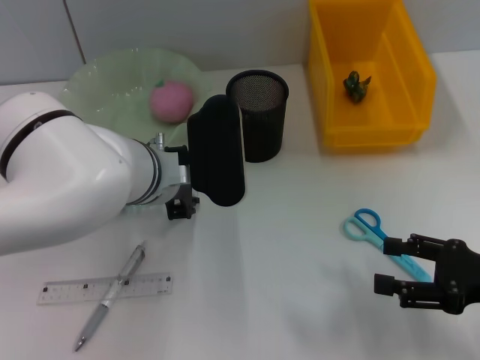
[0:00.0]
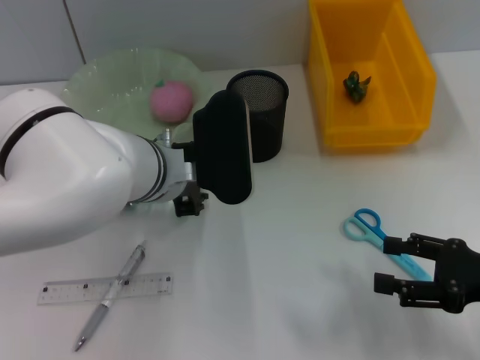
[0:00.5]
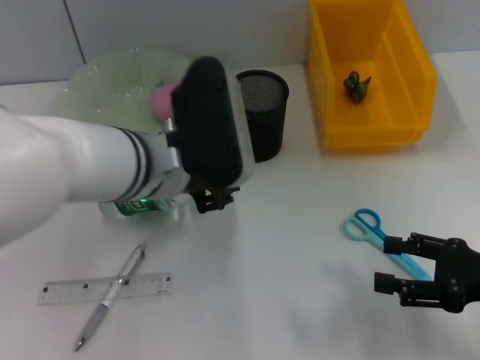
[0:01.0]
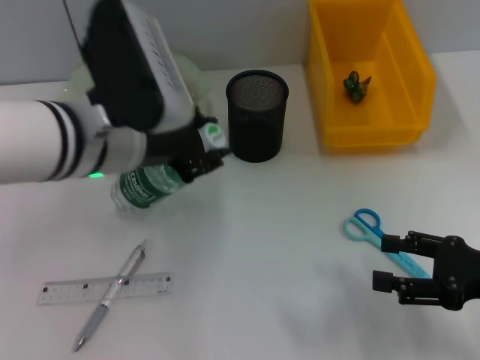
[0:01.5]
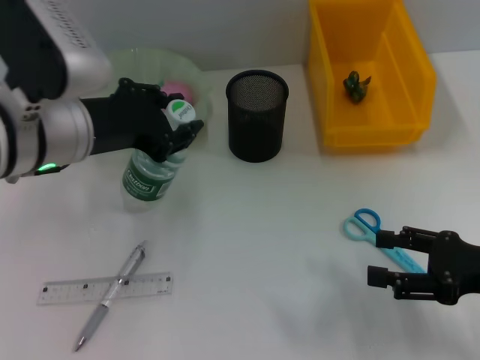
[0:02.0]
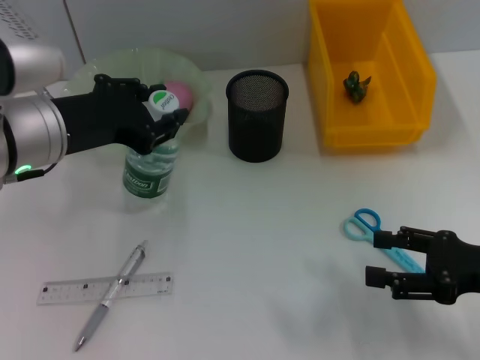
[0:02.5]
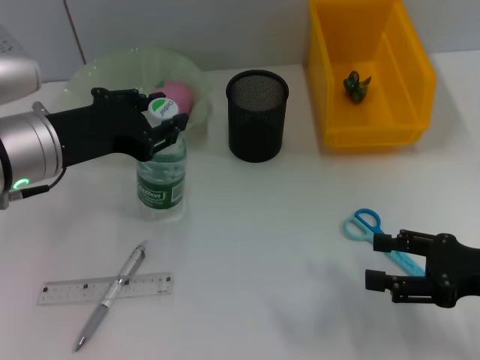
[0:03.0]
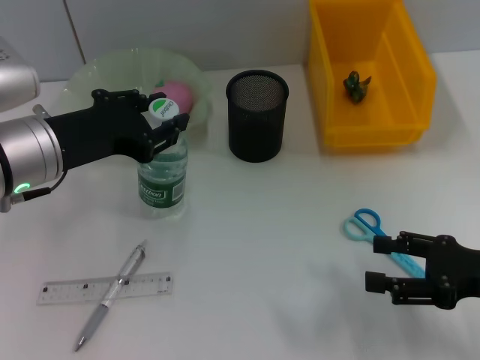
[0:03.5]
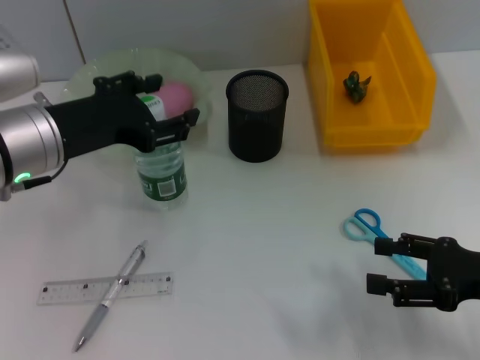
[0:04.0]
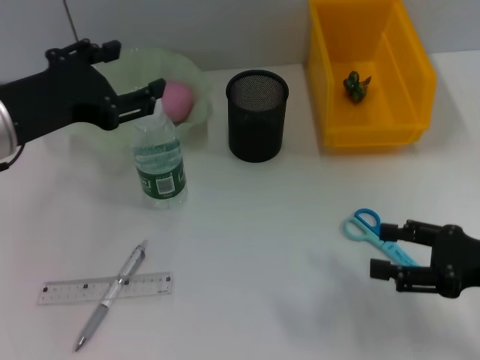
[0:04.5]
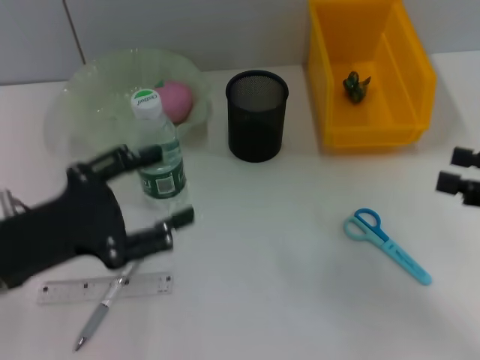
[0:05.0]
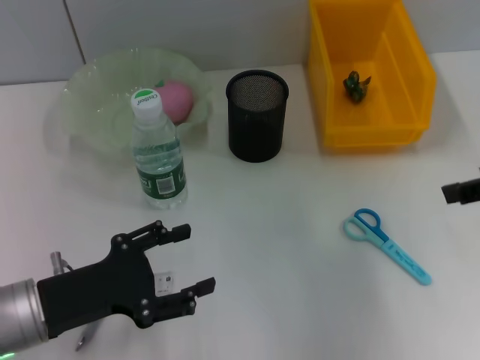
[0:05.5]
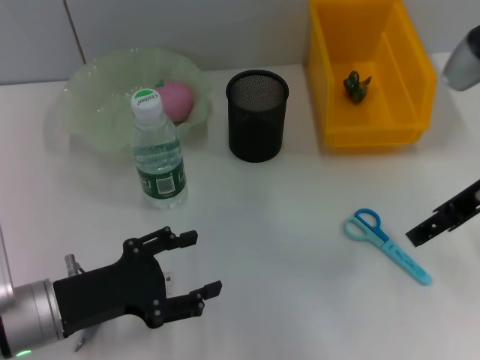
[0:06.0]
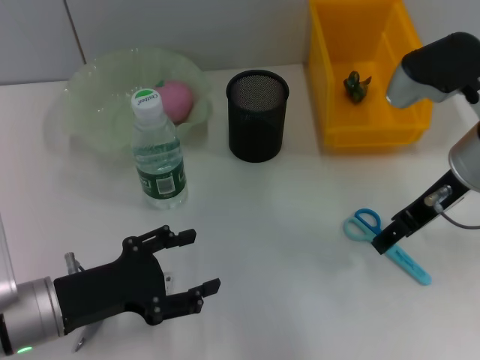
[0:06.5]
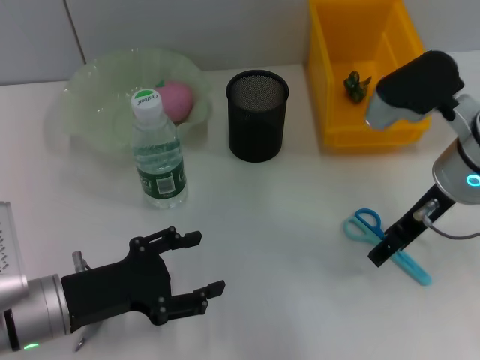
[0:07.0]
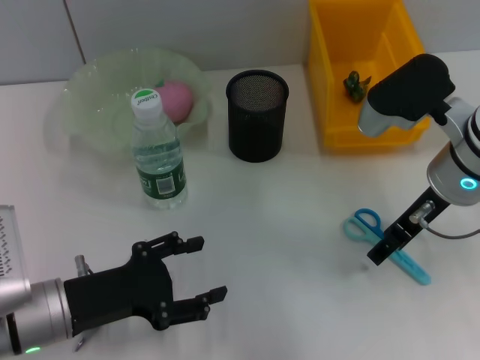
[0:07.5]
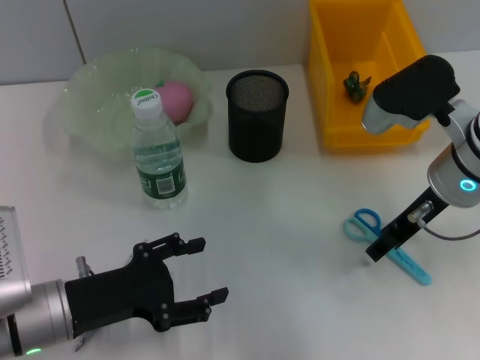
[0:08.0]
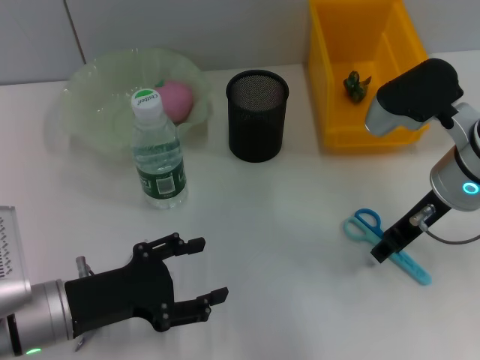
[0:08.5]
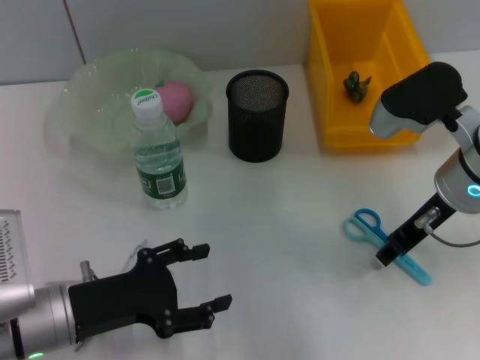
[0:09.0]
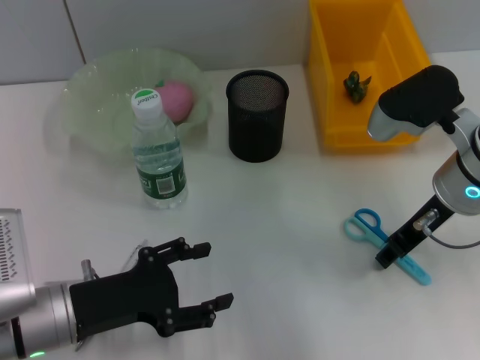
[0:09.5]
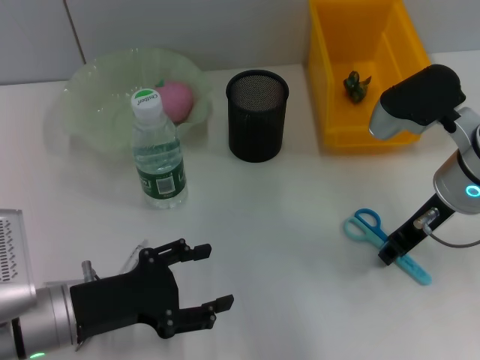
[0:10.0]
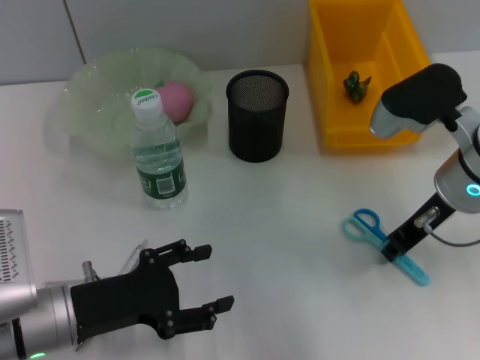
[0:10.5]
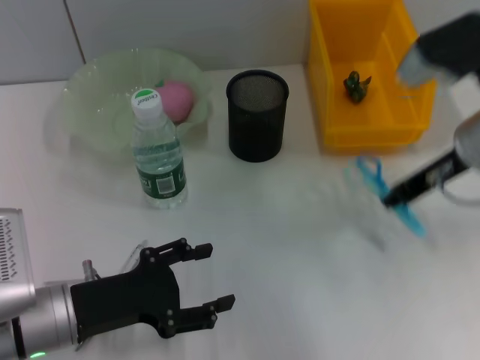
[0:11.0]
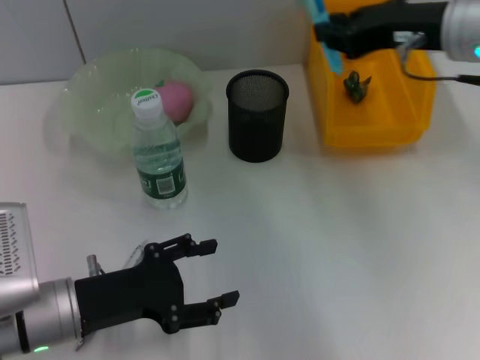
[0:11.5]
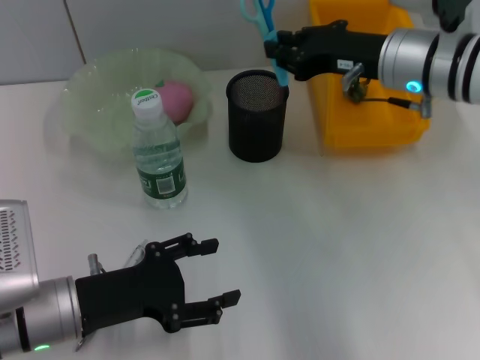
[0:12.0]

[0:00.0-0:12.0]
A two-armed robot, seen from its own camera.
Step, 0:00.5 to 0:04.5: Place the water bottle on the table with the left hand.
Step, 0:05.0 to 0:10.0: Grab the blue scissors with the right hand.
0:00.0 to 0:02.0: The left gripper moves to the left and upward, roughly 10 cm.
0:02.0 to 0:04.0: The grippers make only small movements.
0:04.0 to 0:06.0: The left gripper heads downward and backward, covering about 15 cm, and opens its fingers. The right gripper moves upward, forward and to the left, approximately 15 cm.
0:06.0 to 0:08.0: The right gripper goes approximately 5 cm downward.
0:08.0 to 0:10.0: The right gripper closes up.
0:10.0 to 0:12.0: The right gripper travels forward by roughly 5 cm, and travels upward and back again, roughly 10 cm each way.

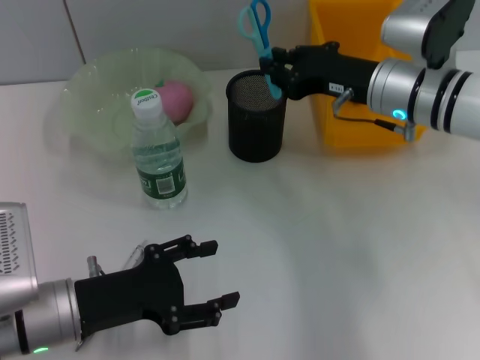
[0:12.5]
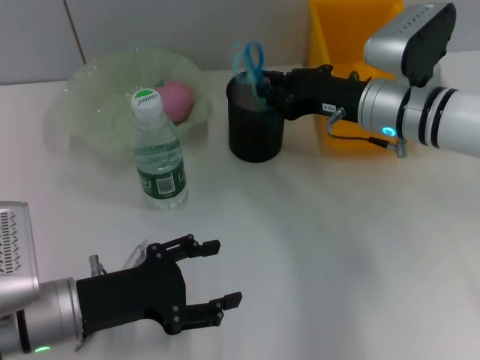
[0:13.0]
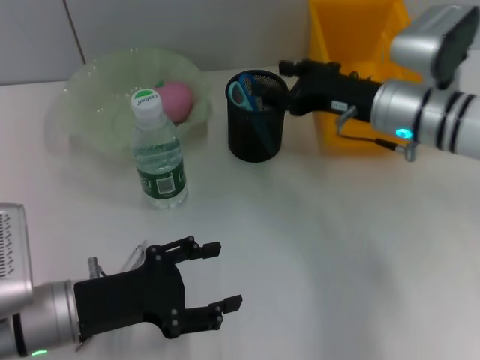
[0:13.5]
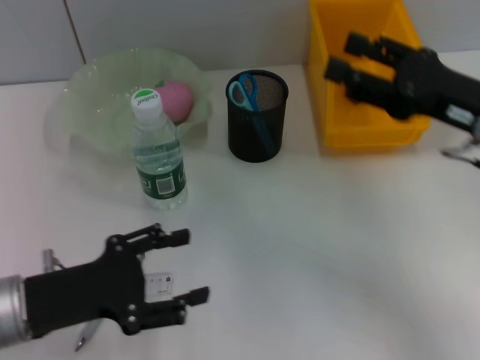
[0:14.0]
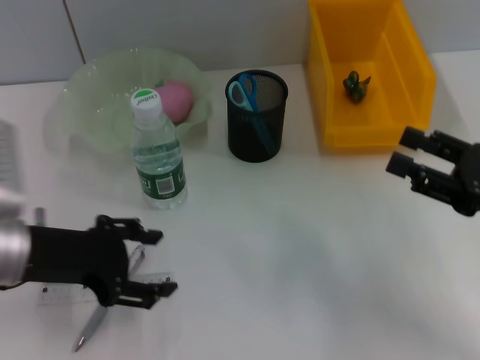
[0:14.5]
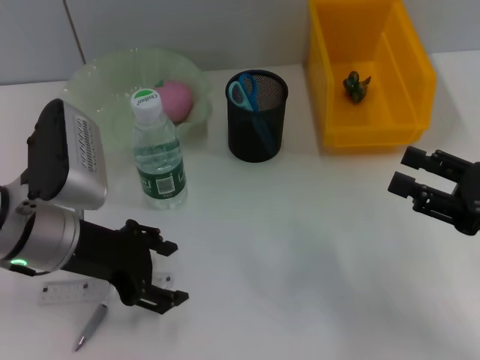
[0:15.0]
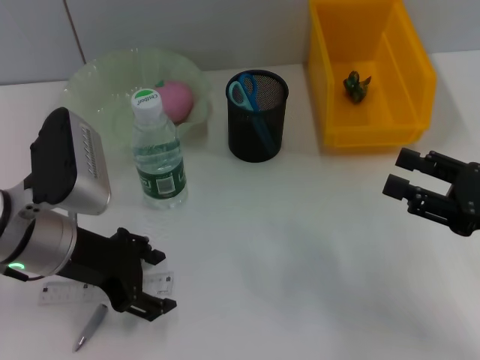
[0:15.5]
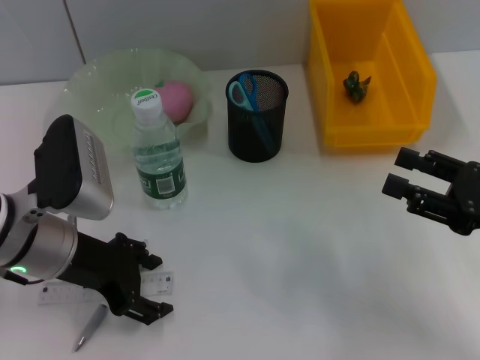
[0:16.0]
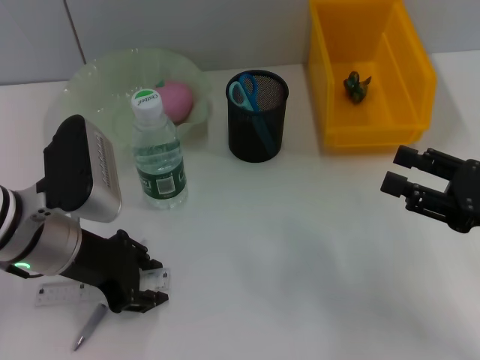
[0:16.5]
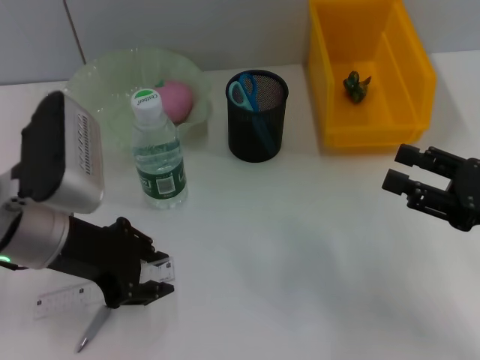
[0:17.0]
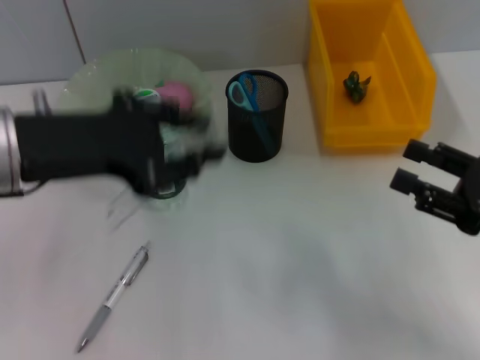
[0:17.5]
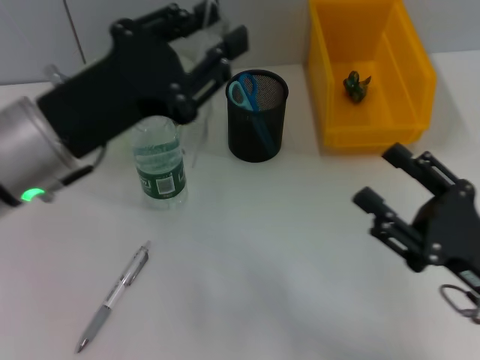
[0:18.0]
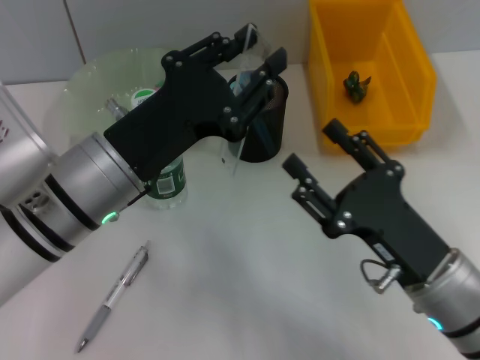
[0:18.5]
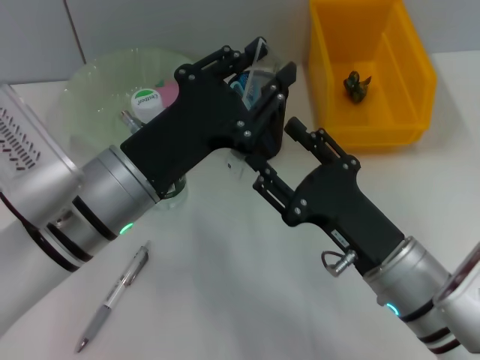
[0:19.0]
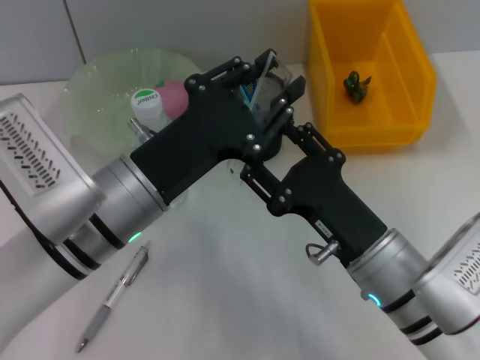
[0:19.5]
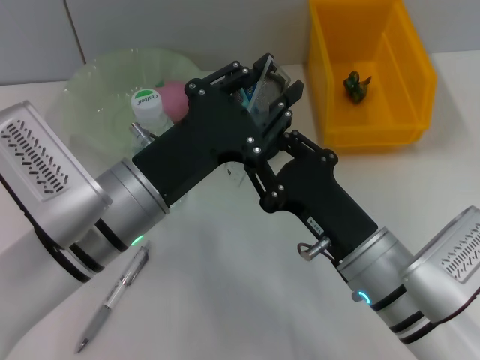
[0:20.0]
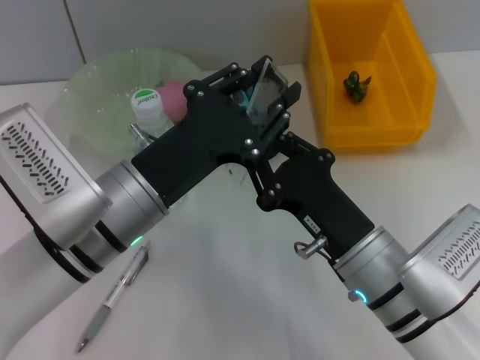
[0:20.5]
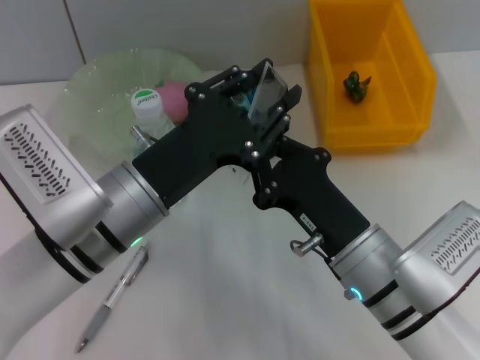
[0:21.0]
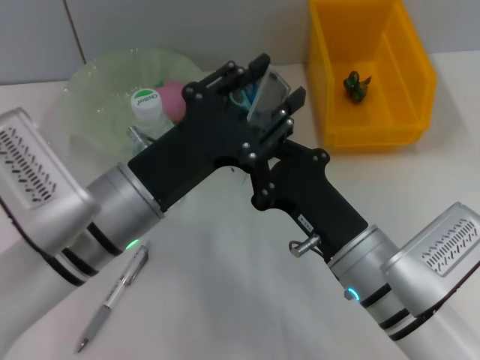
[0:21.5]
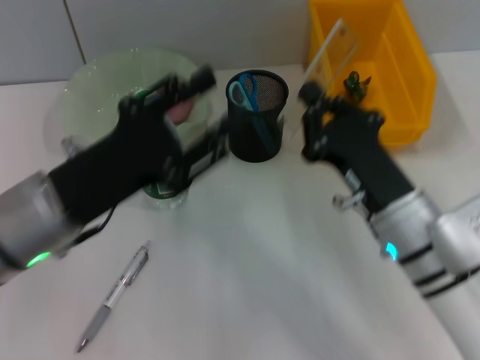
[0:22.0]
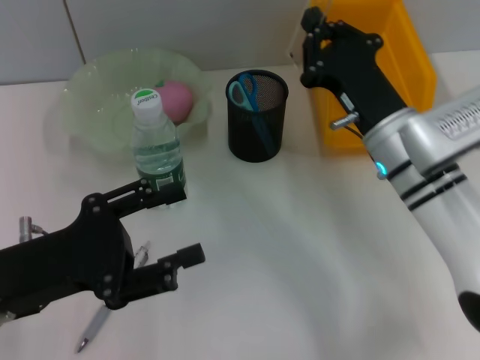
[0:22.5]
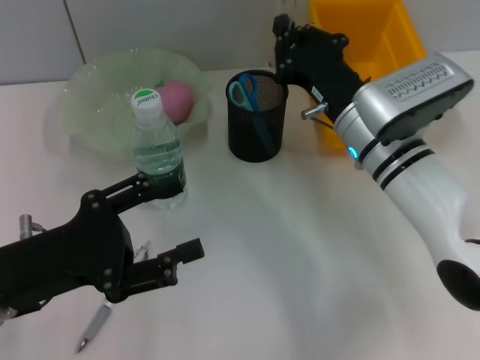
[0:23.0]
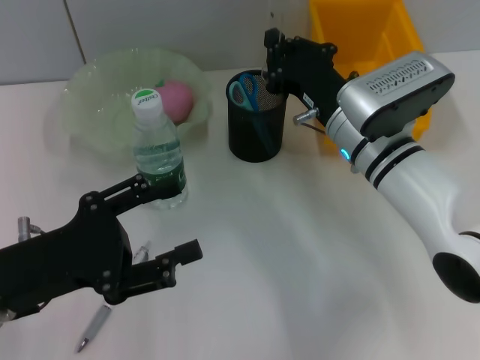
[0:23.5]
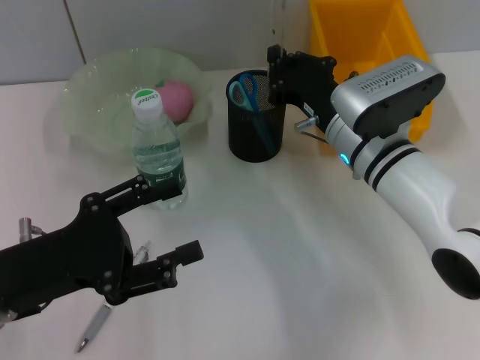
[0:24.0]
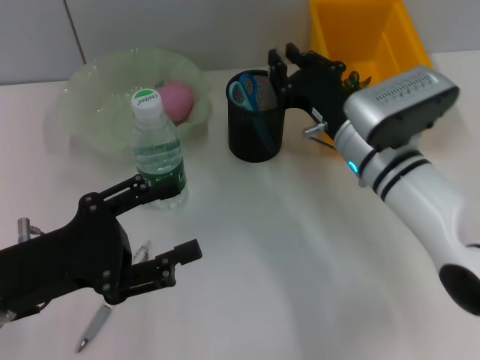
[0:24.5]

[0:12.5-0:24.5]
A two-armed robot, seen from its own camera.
Step, 0:14.0 to 0:16.5: Grab the ruler with the left hand.
Step, 0:17.0 to 0:21.5: Pass the ruler from the left hand to the right hand.
0:12.5 to 0:14.5: The left gripper shifts about 10 cm upward. Meanwhile the right gripper moves backward and to the right, approximately 20 cm, and opens its fingers.
0:14.5 to 0:16.5: The left gripper moves approximately 5 cm.
0:16.5 to 0:18.5: The left gripper is displaced to the right by roughly 5 cm, and goes upward and returns, some 10 cm each way, while the right gripper is displaced to the left by approximately 15 cm.
0:18.5 to 0:20.5: The right gripper moves to the left, some 5 cm, and closes its fingers.
0:20.5 to 0:22.5: The left gripper shifts about 10 cm to the left. Meanwhile the right gripper is displaced forward by roughly 10 cm.
0:22.5 to 0:24.5: The grippers make only small movements.

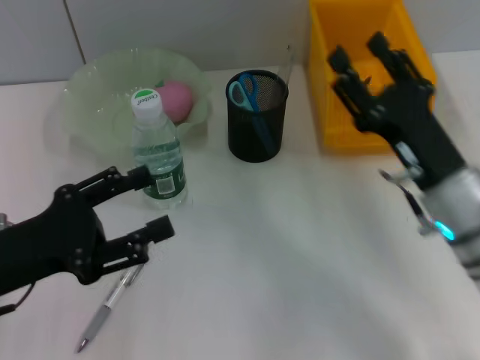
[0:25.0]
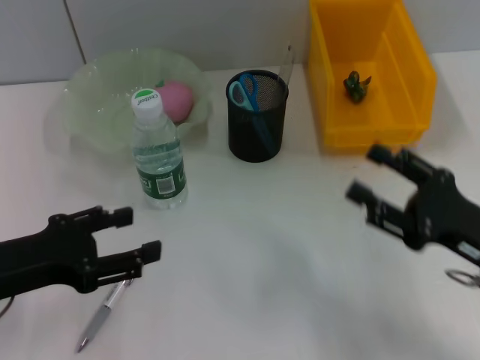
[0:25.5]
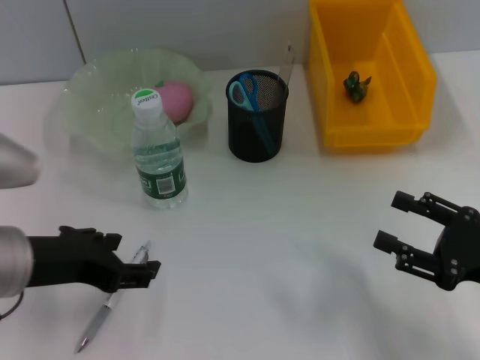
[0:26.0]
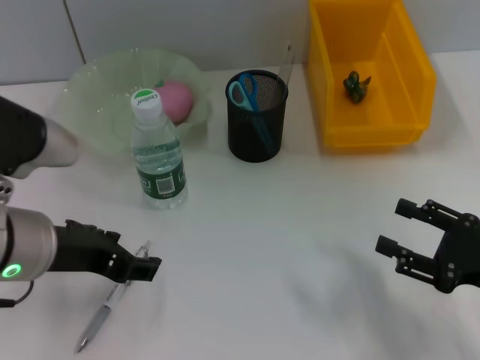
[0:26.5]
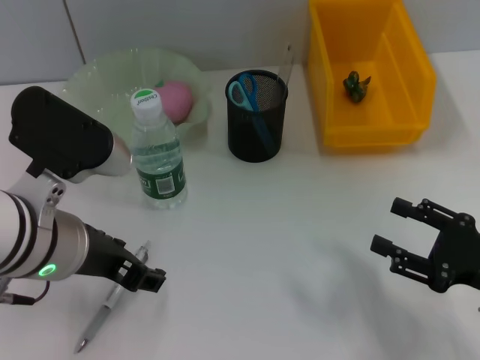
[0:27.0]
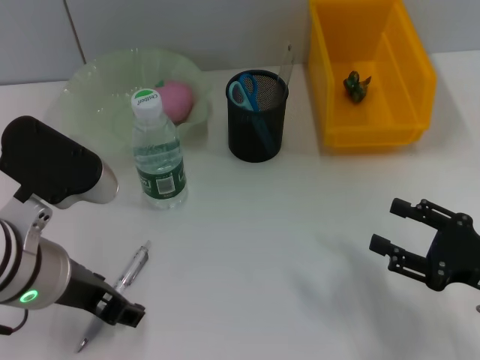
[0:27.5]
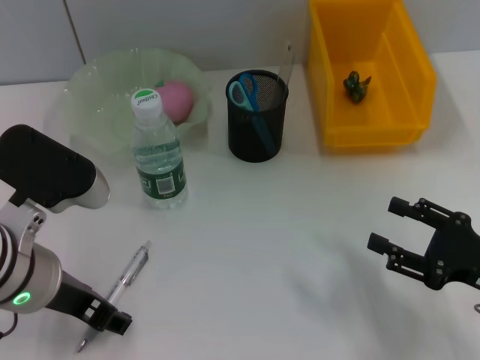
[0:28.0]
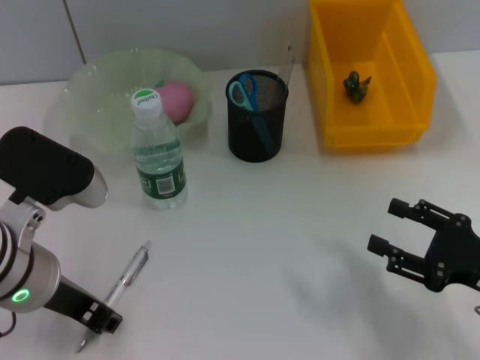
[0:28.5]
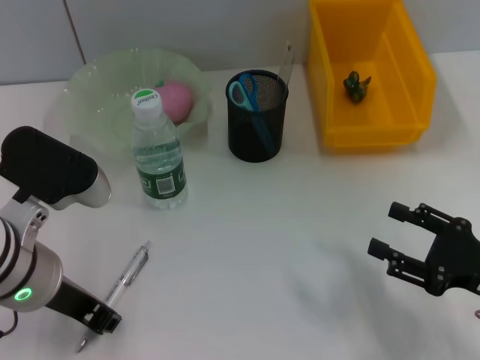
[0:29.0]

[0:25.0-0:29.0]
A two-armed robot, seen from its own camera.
0:25.0 to 0:27.0: The left gripper is displaced to the right and upward by roughly 10 cm. Meanwhile the right gripper heads to the right and backward, covering about 15 cm.
0:27.0 to 0:29.0: The left gripper closes up.
